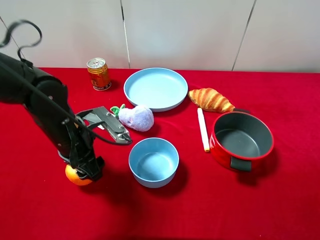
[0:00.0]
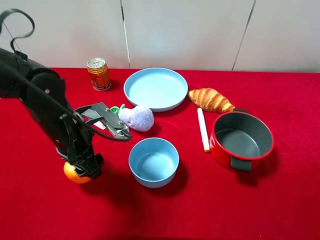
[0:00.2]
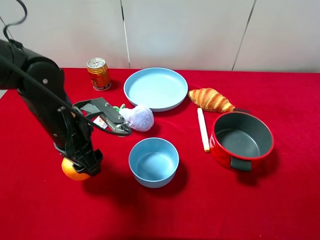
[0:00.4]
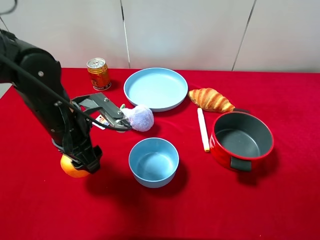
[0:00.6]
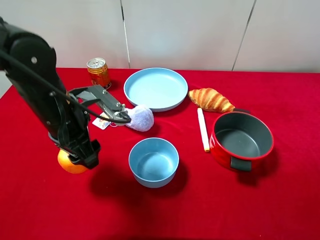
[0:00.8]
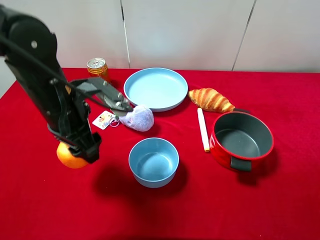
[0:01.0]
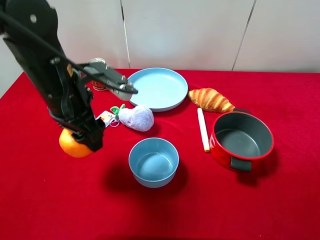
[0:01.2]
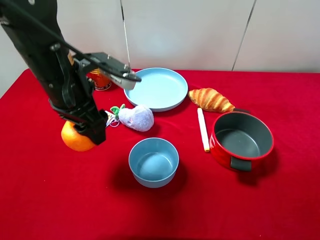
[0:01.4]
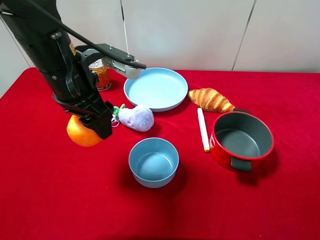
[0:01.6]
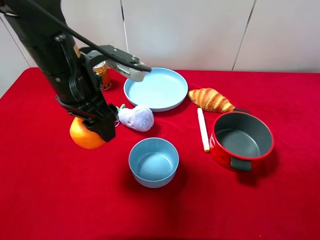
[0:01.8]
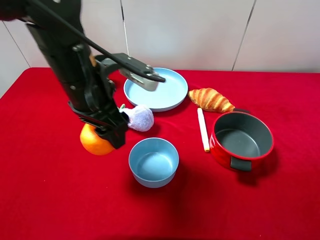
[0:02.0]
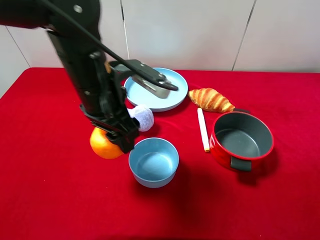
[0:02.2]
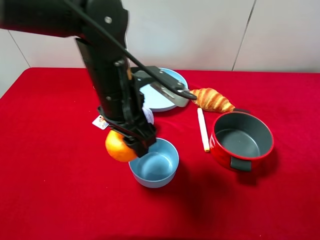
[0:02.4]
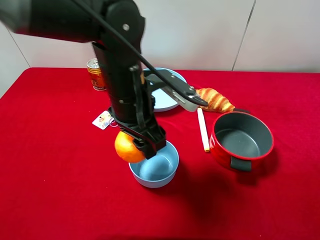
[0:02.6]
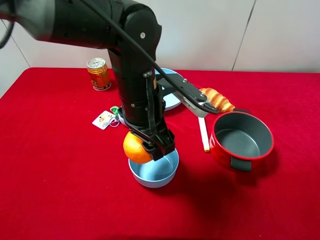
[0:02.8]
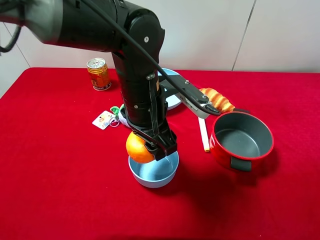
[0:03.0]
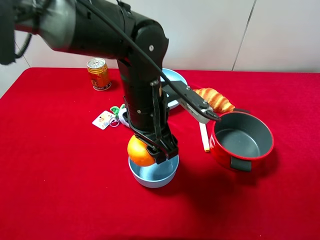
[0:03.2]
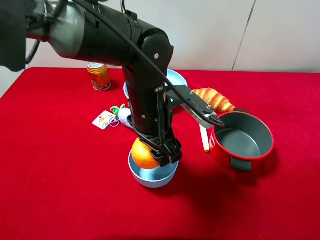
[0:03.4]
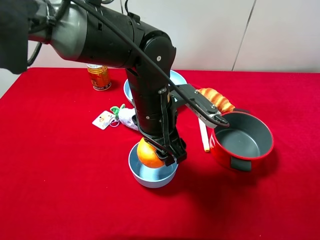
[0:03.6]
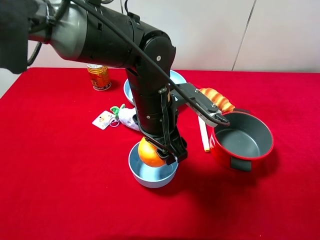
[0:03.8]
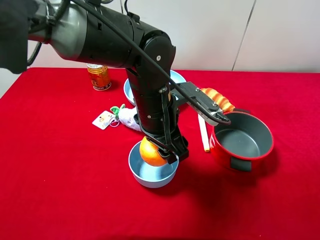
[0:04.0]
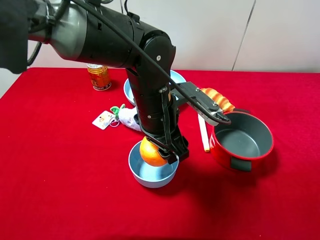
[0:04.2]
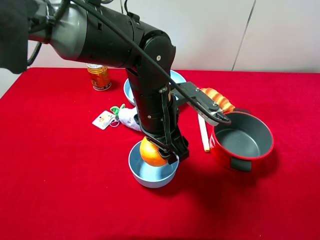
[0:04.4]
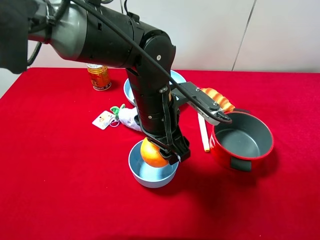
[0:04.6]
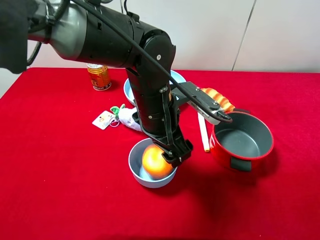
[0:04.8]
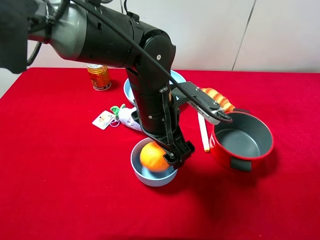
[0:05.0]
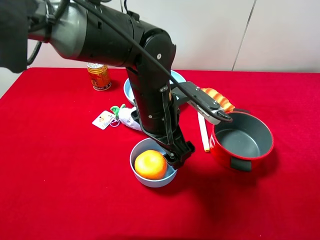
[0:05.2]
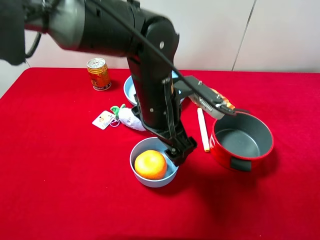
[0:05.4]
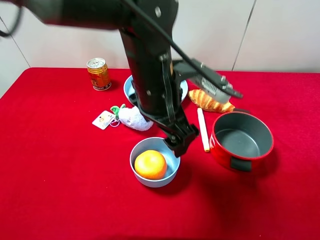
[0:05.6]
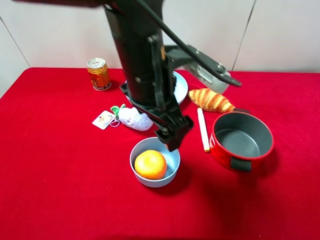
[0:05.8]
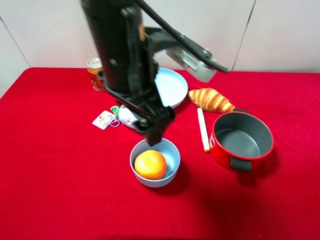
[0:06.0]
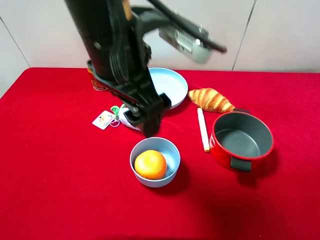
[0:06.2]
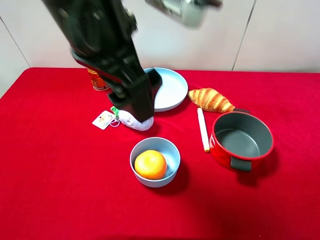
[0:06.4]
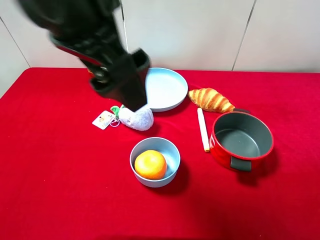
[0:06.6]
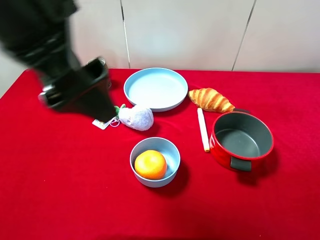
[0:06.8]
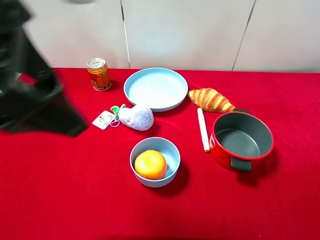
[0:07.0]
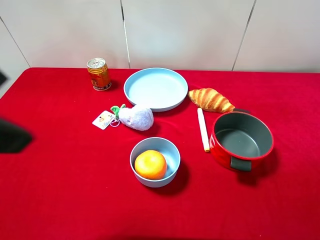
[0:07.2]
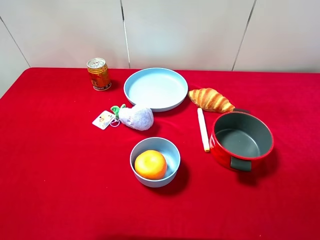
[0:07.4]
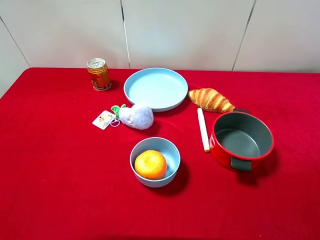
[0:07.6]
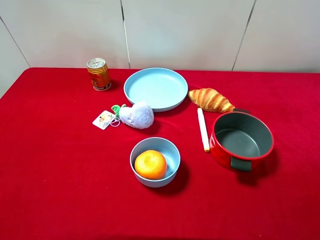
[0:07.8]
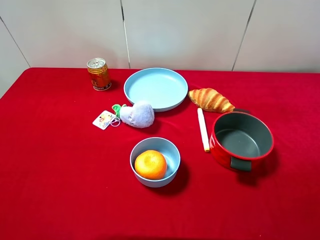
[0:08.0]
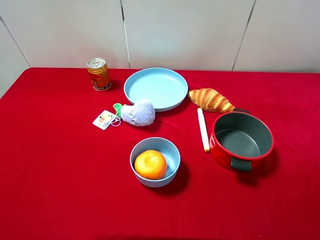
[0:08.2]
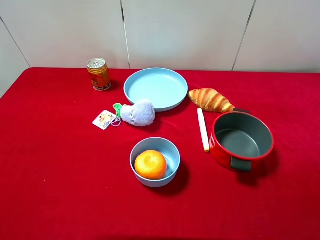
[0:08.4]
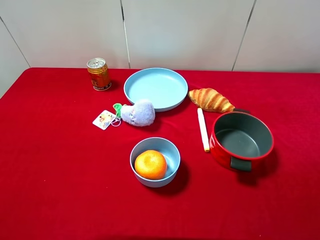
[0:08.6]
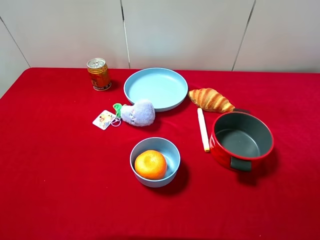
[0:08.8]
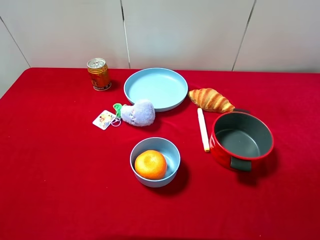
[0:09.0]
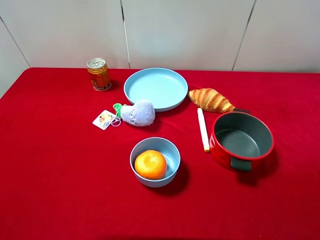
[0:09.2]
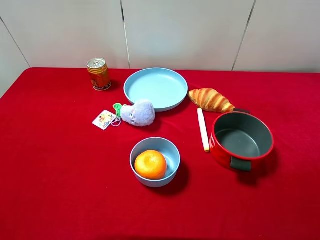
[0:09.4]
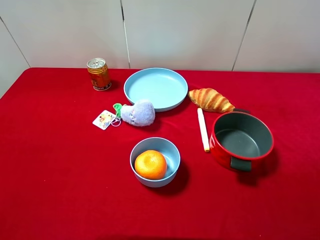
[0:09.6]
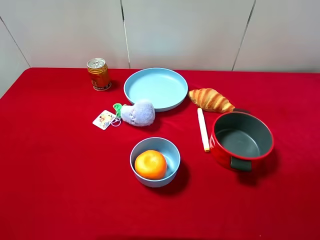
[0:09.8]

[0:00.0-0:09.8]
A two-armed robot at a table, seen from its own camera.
Task of the whole recording: pick up an item with a gripper and place it in a random container on the desktop.
0:00.0 to 0:01.4: The left gripper travels upward by roughly 10 cm.
0:01.4 to 0:02.8: The left gripper shifts about 10 cm to the right.
0:02.8 to 0:04.2: The grippers stay close to where they were, moving slightly.
0:04.2 to 0:05.6: The left gripper travels upward by some 5 cm, and opens its fingers.
0:05.6 to 0:07.0: The left gripper goes approximately 25 cm to the left, upward and backward.
0:07.0 to 0:08.4: The left gripper heads to the left, backward and downward, covering approximately 25 cm.

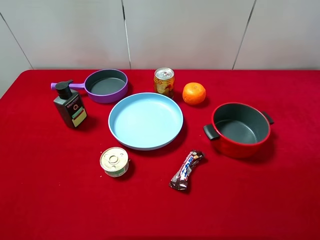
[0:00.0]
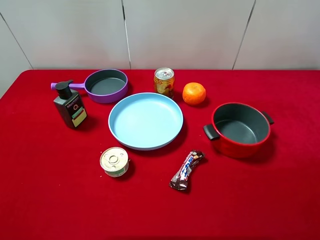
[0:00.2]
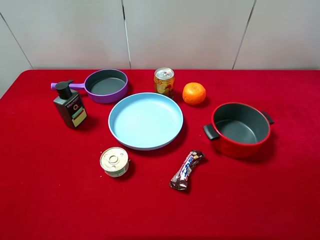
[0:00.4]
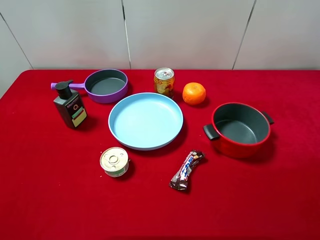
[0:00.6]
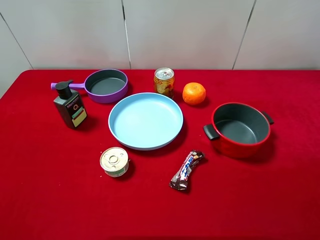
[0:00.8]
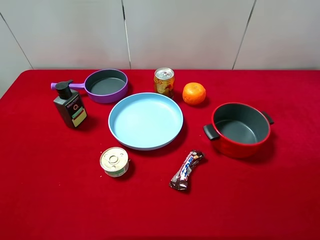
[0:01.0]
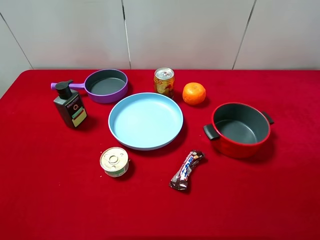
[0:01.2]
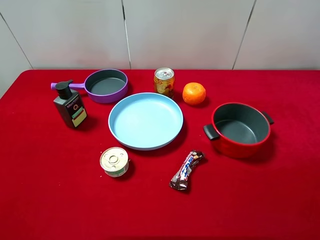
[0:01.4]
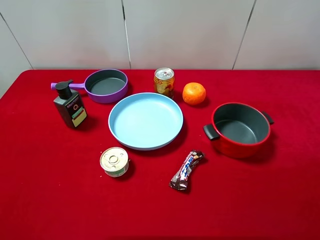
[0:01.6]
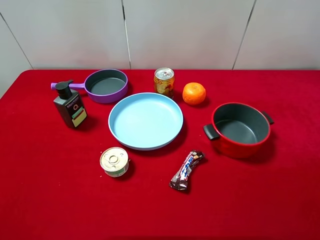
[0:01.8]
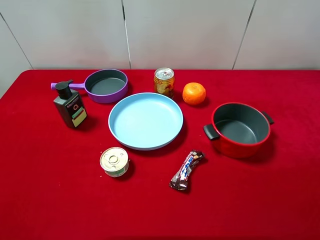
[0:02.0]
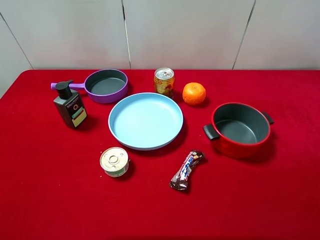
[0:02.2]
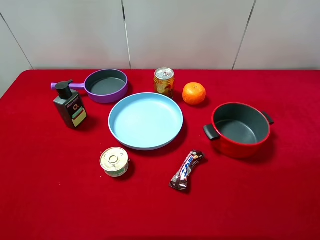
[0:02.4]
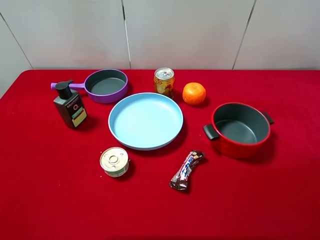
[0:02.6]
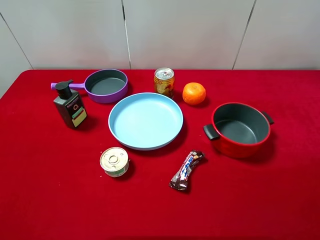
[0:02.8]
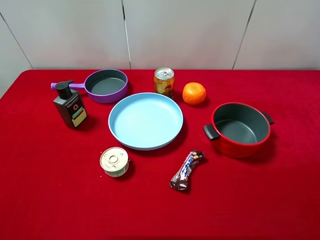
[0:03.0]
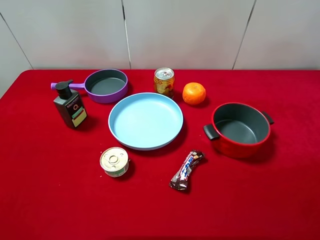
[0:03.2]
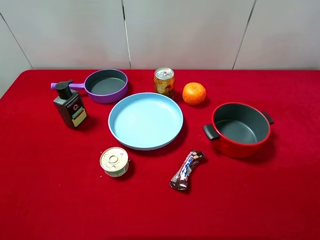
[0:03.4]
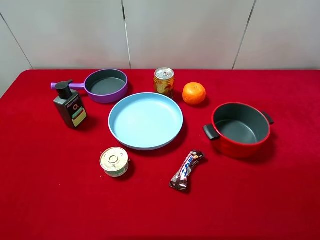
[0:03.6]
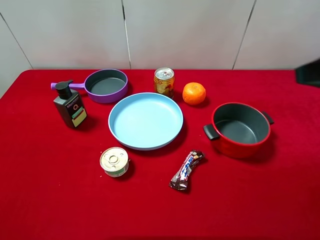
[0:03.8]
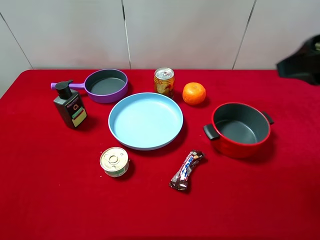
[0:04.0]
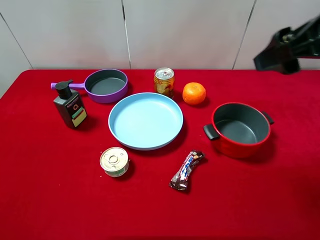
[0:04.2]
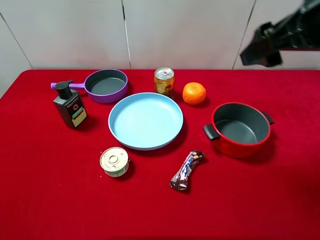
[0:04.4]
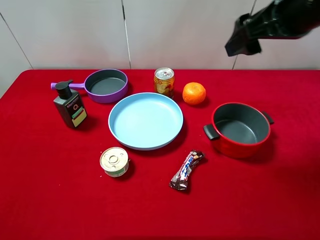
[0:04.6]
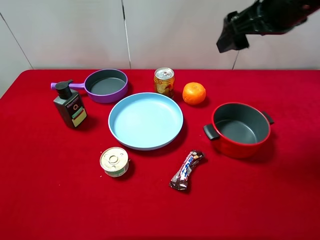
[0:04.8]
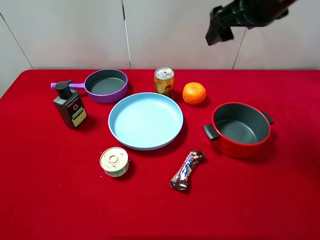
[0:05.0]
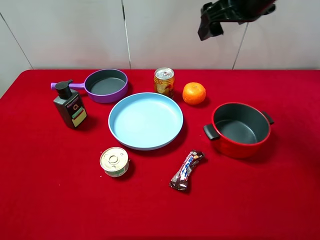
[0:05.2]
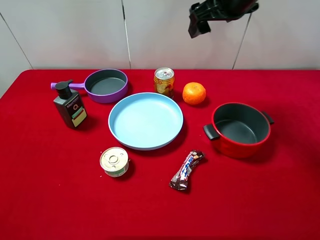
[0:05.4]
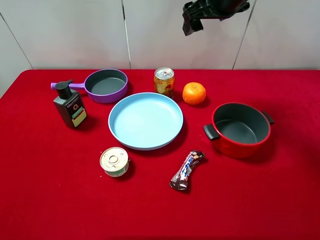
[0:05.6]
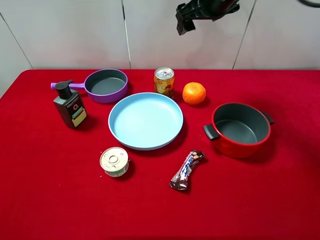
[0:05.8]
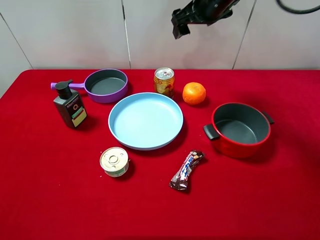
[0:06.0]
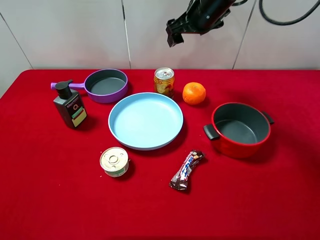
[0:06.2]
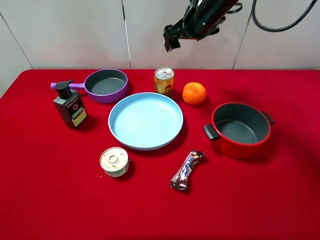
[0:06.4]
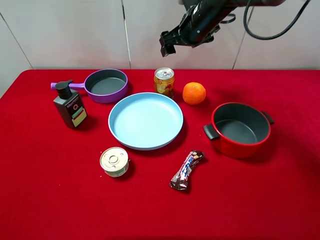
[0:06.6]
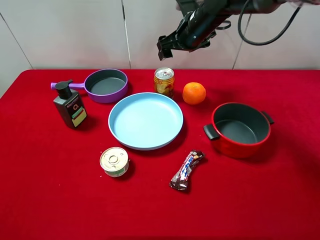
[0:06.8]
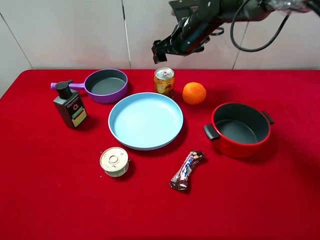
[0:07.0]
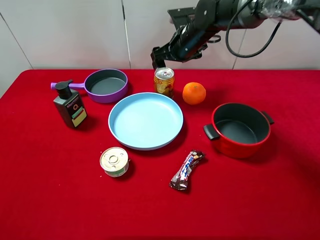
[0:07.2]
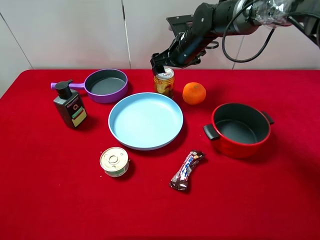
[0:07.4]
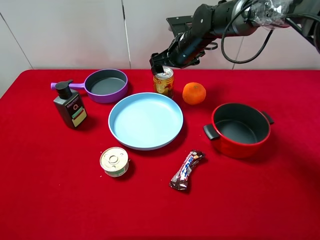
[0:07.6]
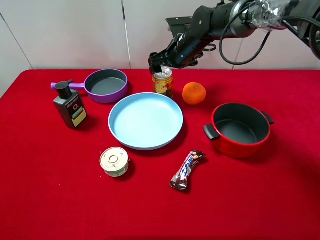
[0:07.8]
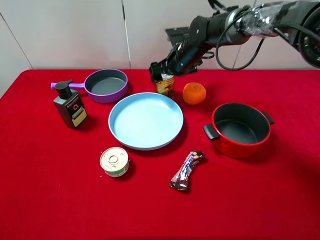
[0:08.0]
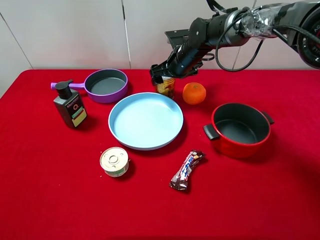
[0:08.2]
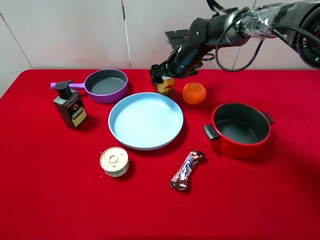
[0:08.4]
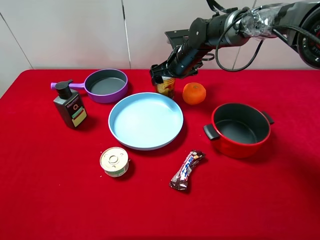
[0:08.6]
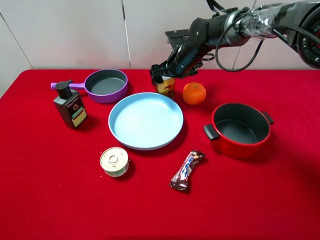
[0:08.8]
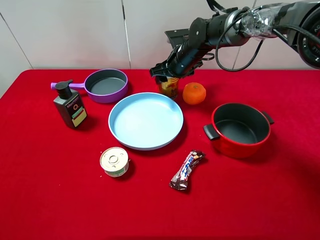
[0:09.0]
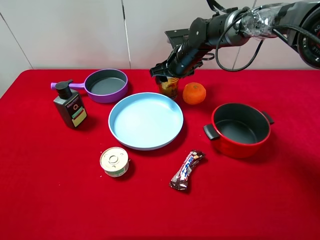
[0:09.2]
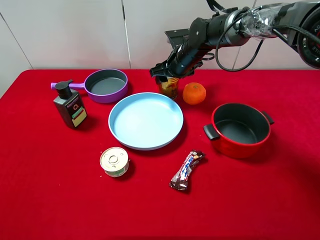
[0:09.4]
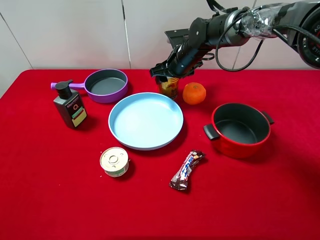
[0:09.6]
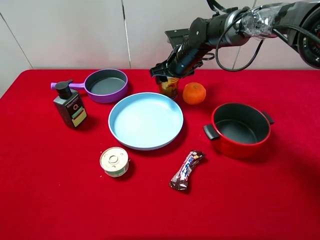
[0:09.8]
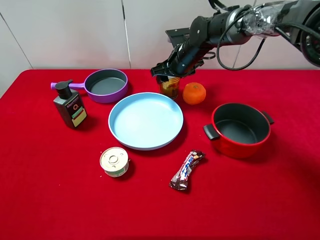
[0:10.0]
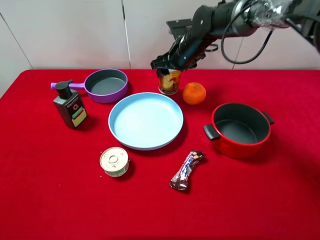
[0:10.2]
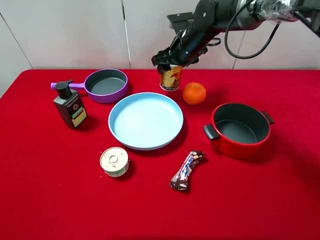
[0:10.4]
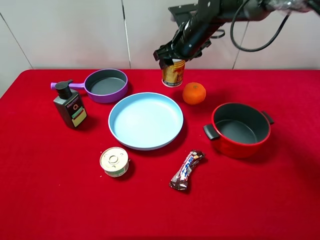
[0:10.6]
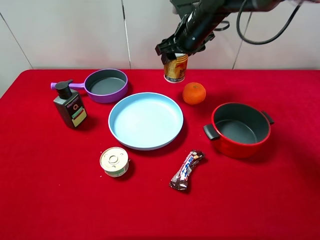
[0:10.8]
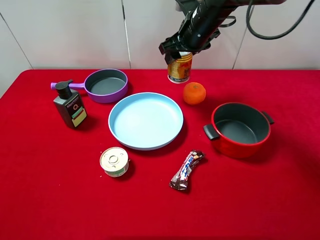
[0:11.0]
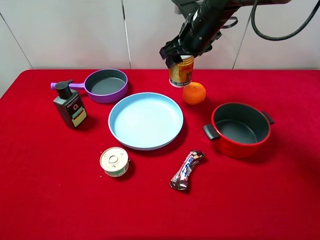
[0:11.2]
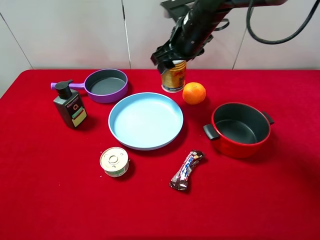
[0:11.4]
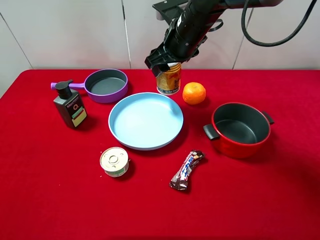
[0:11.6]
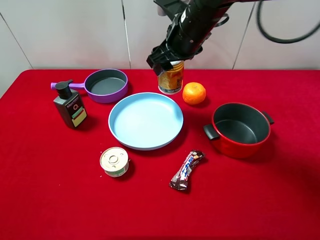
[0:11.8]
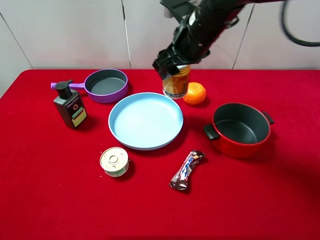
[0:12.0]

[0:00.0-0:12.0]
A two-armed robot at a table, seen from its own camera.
Task of the whole recording: pick up an item with a gripper and place it in a random container on the desktop.
0:00.0 to 0:01.6: Both grippers stay about where they are.
0:03.0 to 0:04.4: The right gripper heads forward and to the left, covering about 20 cm.
0:04.4 to 0:06.0: The right gripper travels forward and to the left by roughly 20 cm.
0:06.0 to 0:07.6: The right gripper moves downward, about 15 cm.
0:07.6 to 0:09.0: The right gripper closes its fingers.
0:09.0 to 0:10.4: There are only small adjustments of the grippers.
0:10.4 to 0:12.0: The right gripper is displaced backward and upward by about 15 cm.
